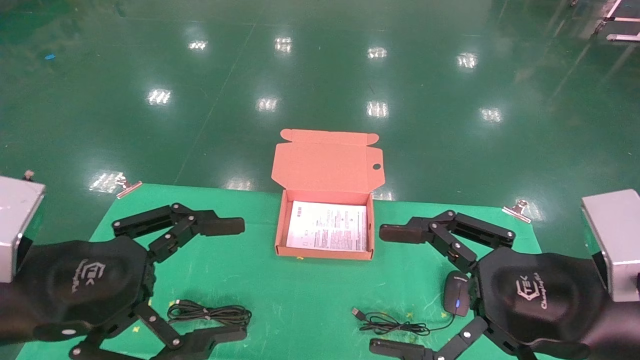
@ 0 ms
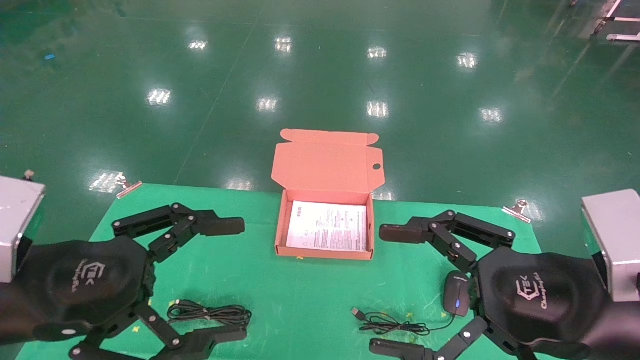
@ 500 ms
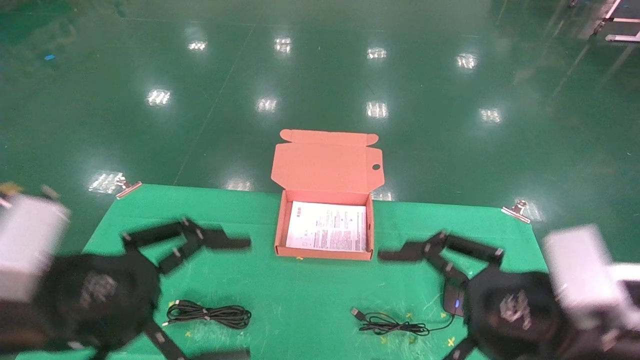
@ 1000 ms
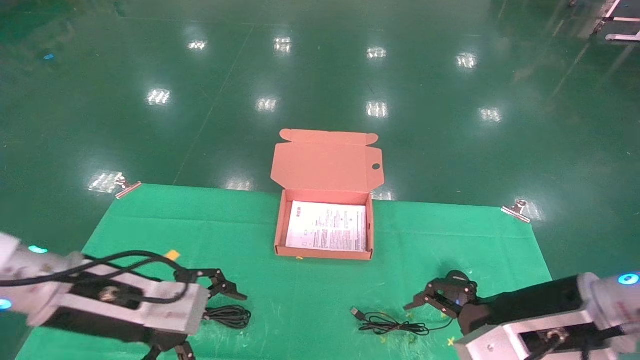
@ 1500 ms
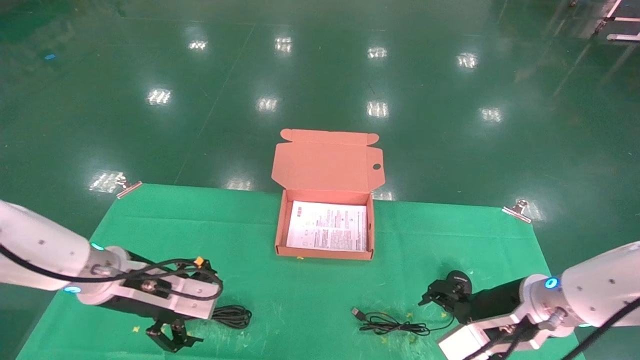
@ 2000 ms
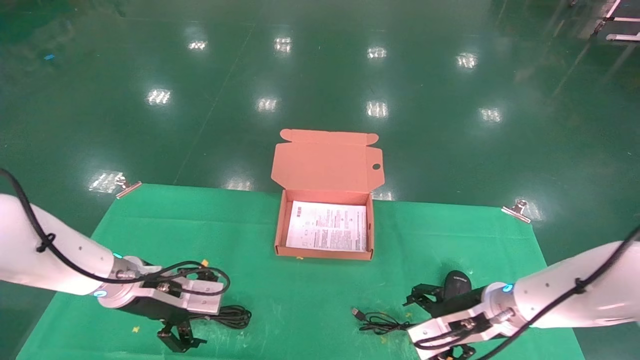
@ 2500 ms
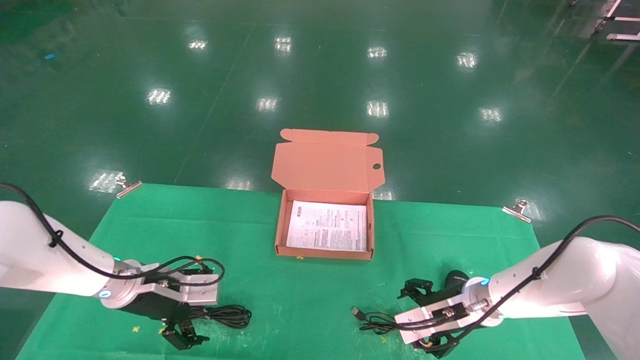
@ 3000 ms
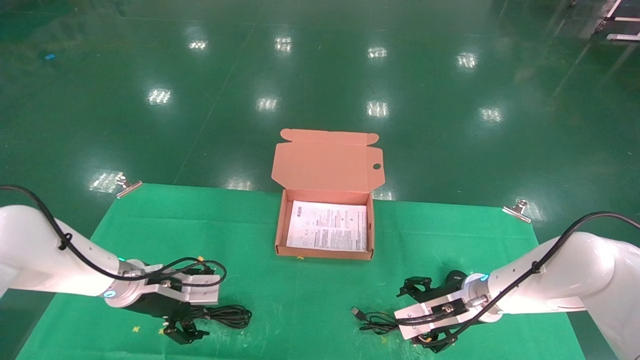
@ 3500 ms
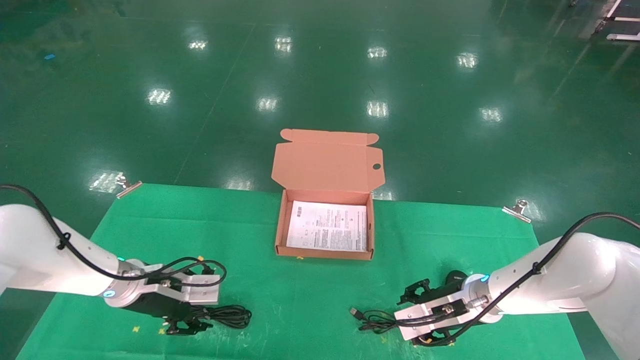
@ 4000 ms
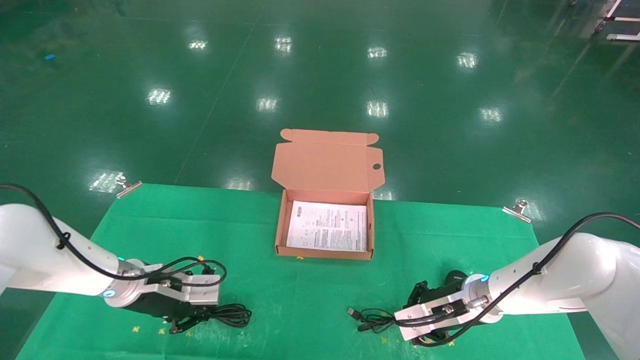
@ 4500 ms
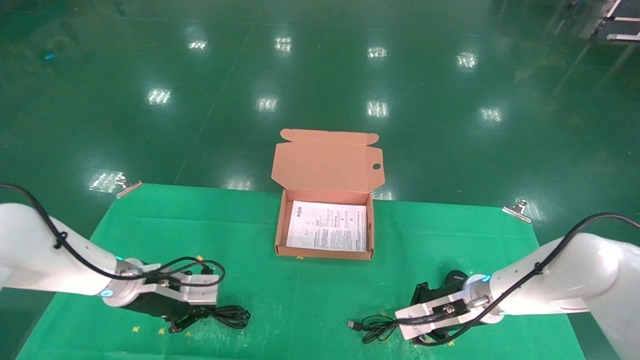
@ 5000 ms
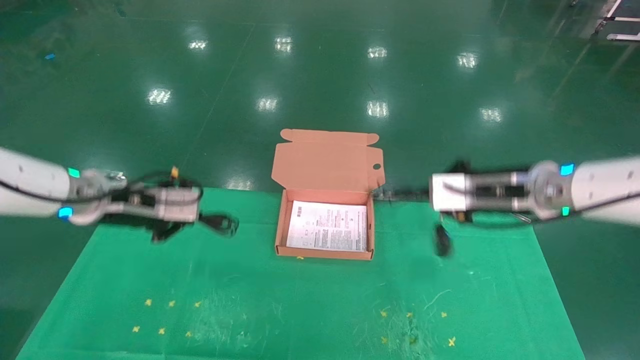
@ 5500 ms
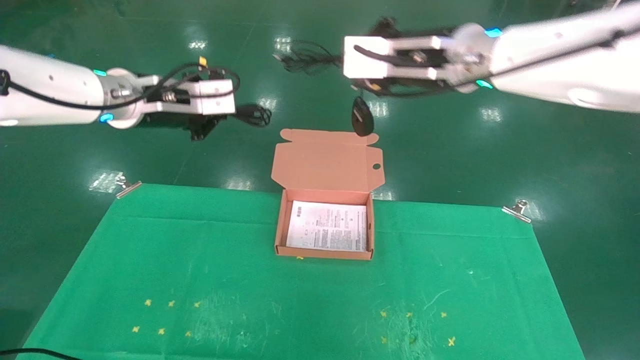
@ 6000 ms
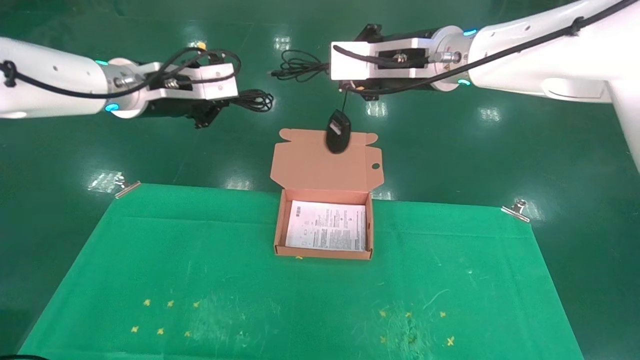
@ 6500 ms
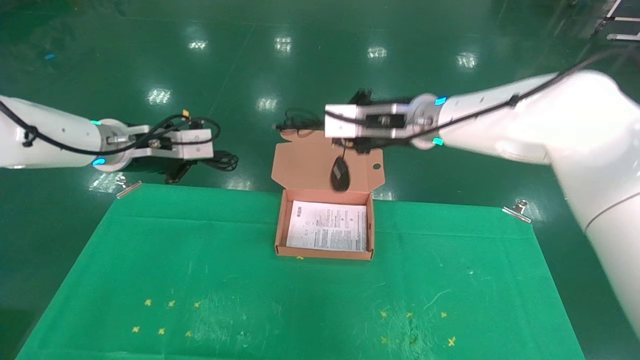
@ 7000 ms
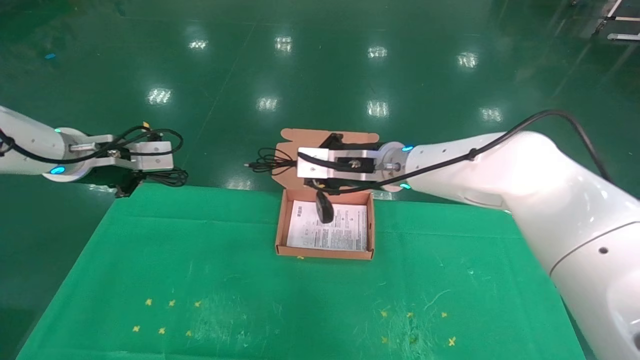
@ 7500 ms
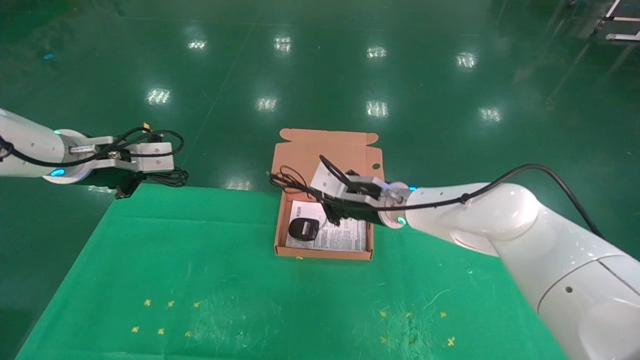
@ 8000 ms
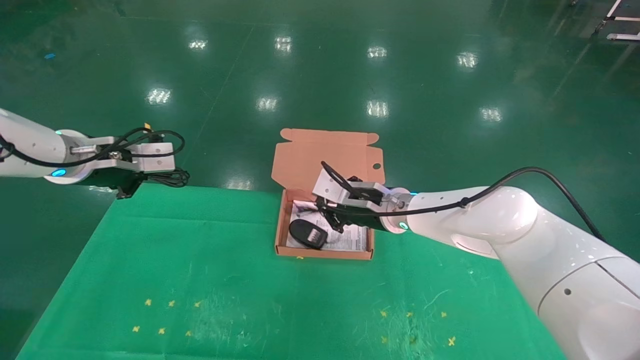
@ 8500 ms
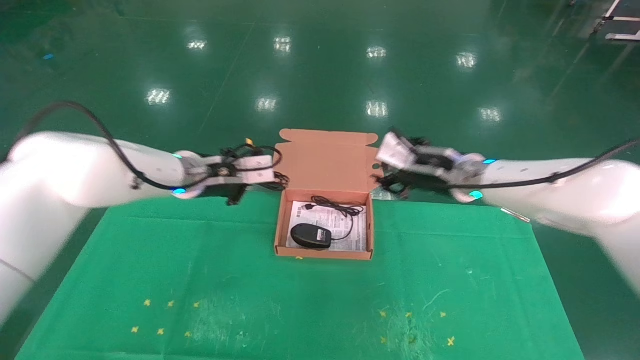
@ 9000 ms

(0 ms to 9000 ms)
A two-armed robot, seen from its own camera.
Task of the whole recording: grasp data cable left put into box grasp mouse right put into box.
Step, 1000 ms - 5000 ms: Grab and pick up both the mouse and power cord from the accessory packaging area at the same time.
0 ms - 2000 ms: The grippers both shift forward and downward by about 15 cm.
2000 ms - 4500 ms: The two grippers go approximately 10 cm forward and downward. The right gripper closes; the left gripper closes its fingers.
4500 ms - 7000 ms: The right gripper goes approximately 30 cm upward and to the left; the left gripper goes roughly 20 cm upward.
7000 ms - 9000 ms: The right gripper moves to the right, approximately 15 cm, and opens up. The left gripper moves to the right and downward, some 15 cm.

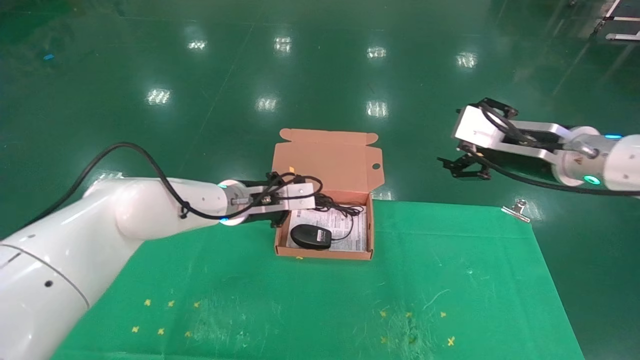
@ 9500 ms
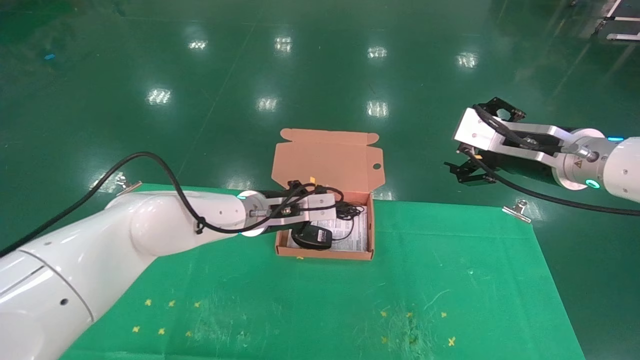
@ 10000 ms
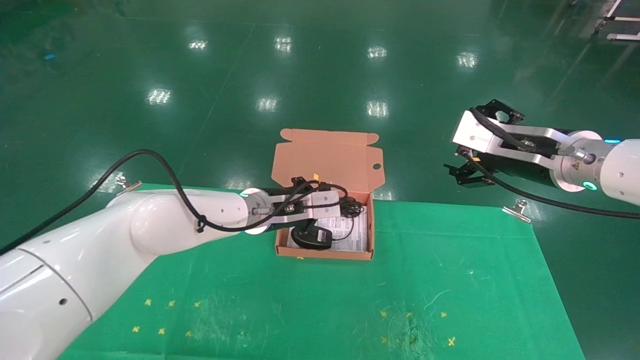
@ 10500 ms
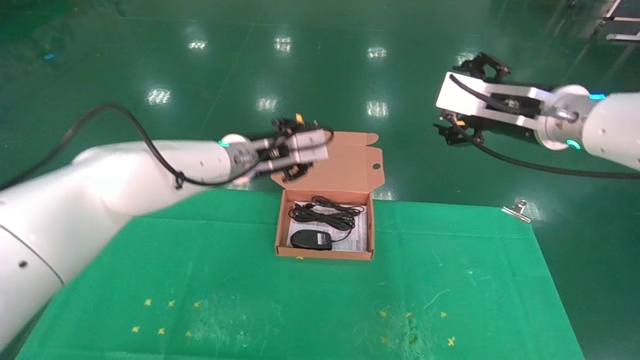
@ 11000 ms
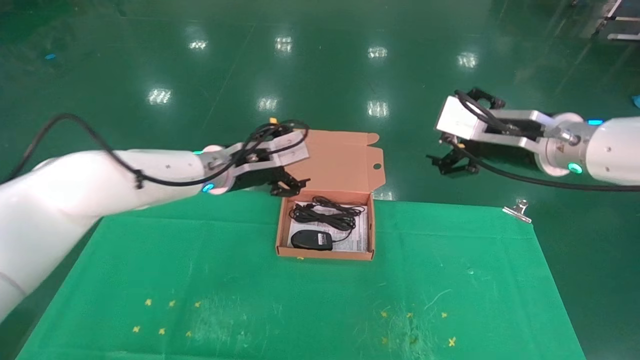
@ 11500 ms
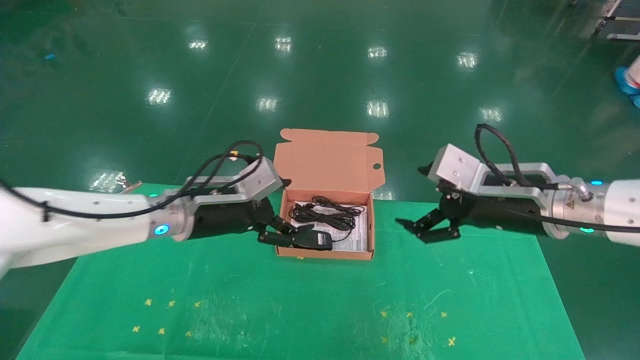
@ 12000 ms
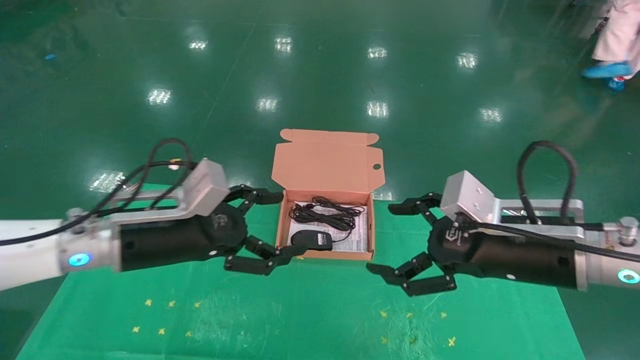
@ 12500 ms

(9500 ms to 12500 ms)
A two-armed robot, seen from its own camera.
Task of the whole recording: grasp data cable left put into box grasp mouse right put into box.
9500 ms - 11000 ms: The left gripper goes some 5 cm upward, and opens its fingers. The right gripper moves approximately 5 cm.
11000 ms - 12500 ms: The left gripper heads backward, to the left and downward, covering some 15 cm, and opens. Meanwhile the right gripper heads downward and backward, covering roughly 15 cm.
